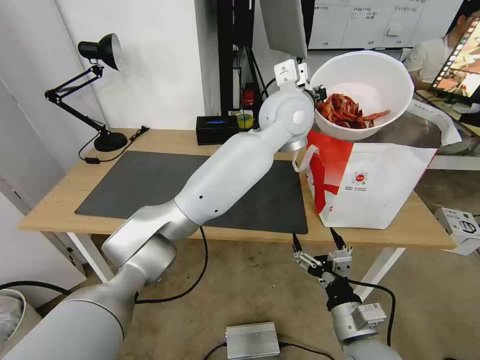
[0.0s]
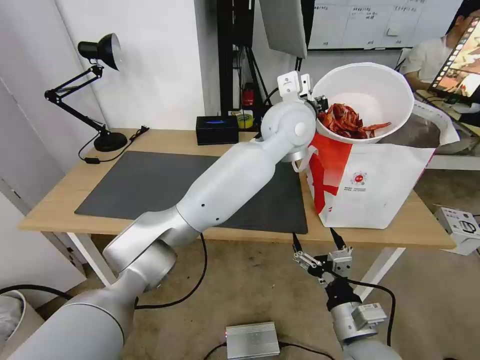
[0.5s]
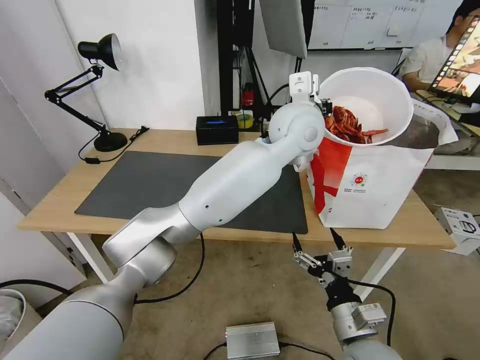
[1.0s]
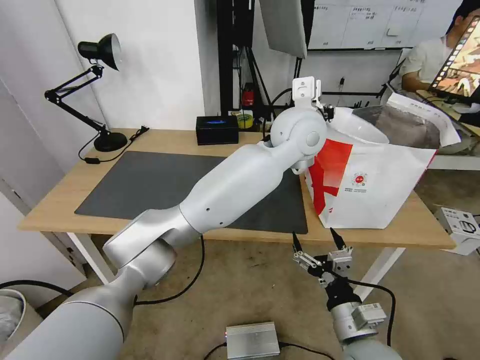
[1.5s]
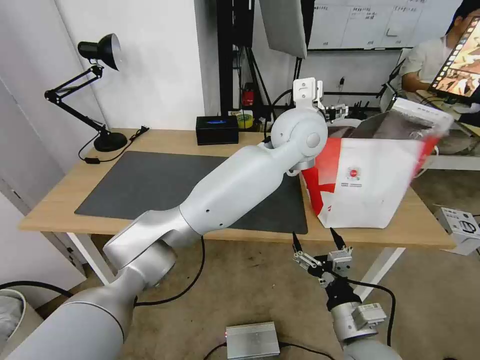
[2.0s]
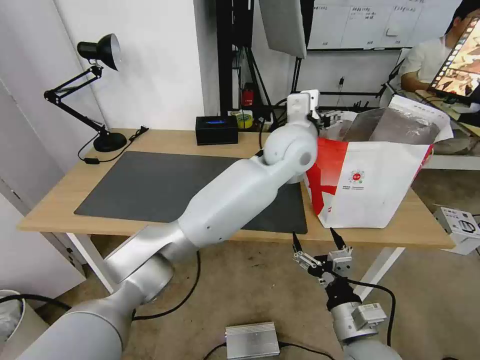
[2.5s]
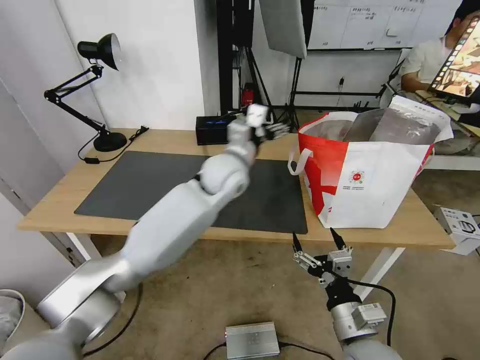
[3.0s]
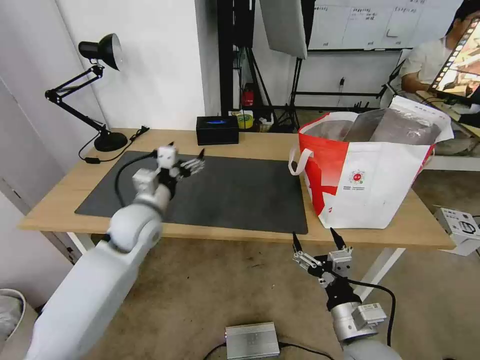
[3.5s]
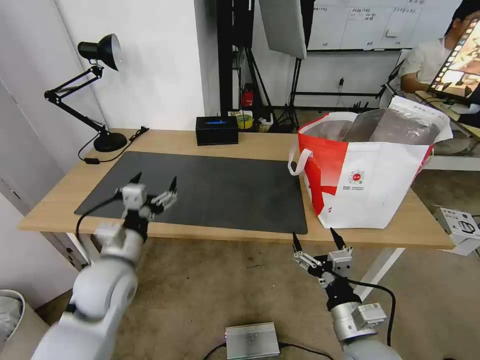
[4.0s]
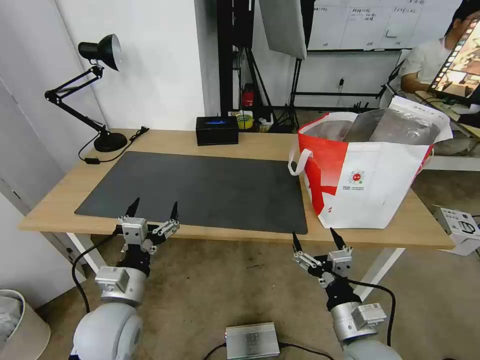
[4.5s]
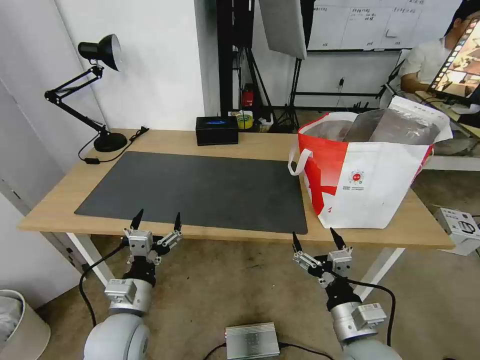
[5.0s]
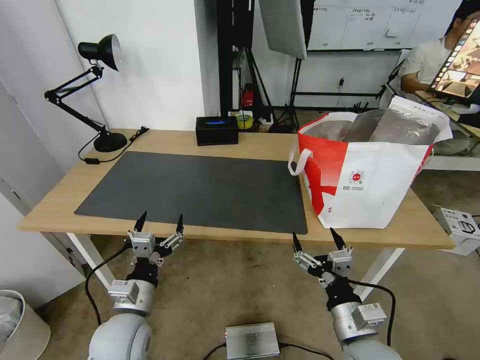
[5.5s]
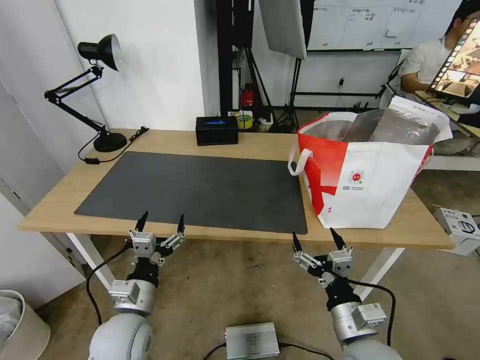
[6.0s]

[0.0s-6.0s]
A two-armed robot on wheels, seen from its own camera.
Task of the whole recording: Pick up the trash from the table and place it into the takeout bag.
0.0s to 2.0s: The left gripper opens up.
2.0s to 4.0s: The left gripper travels to the left, downward and backward by roughly 50 cm.
4.0s to 6.0s: The left gripper moves downward and backward, about 10 cm.

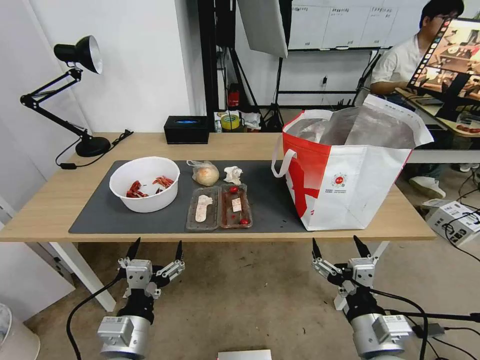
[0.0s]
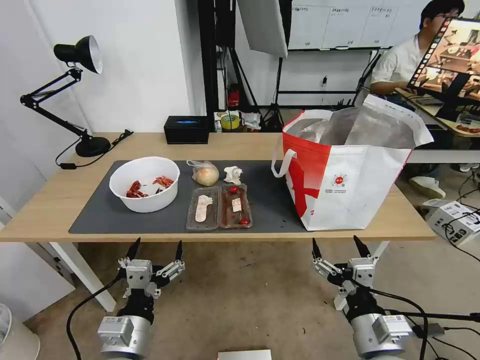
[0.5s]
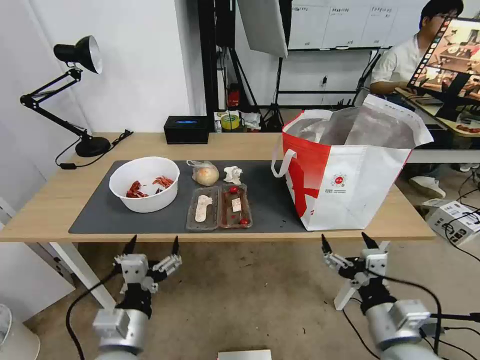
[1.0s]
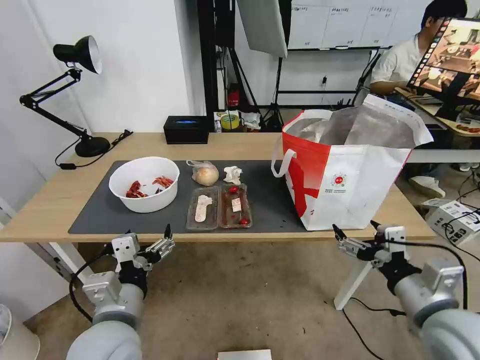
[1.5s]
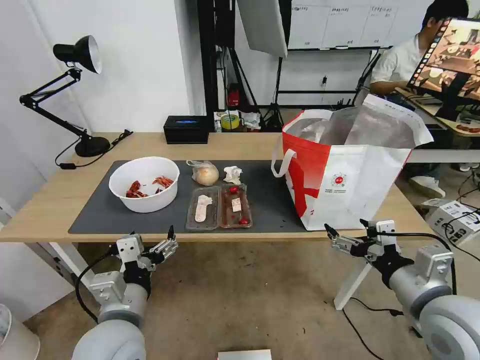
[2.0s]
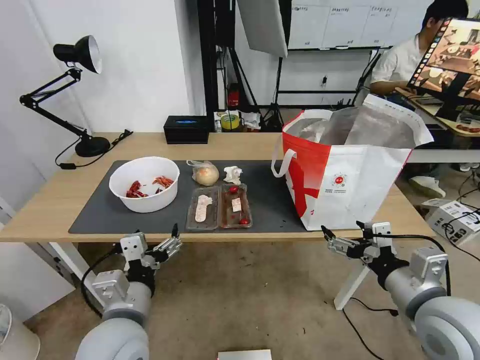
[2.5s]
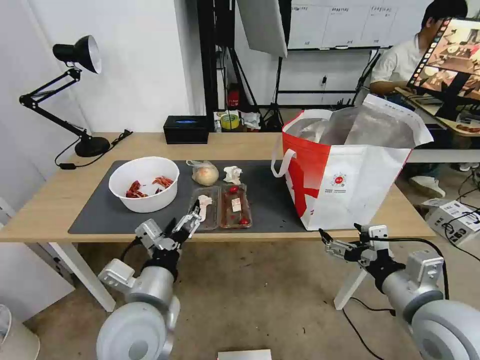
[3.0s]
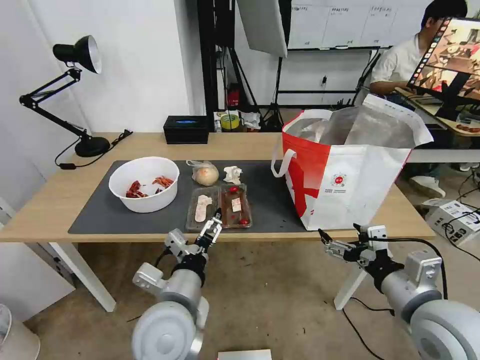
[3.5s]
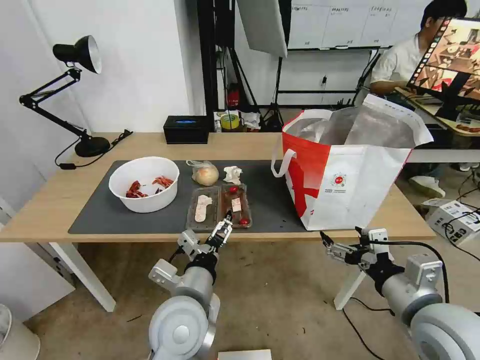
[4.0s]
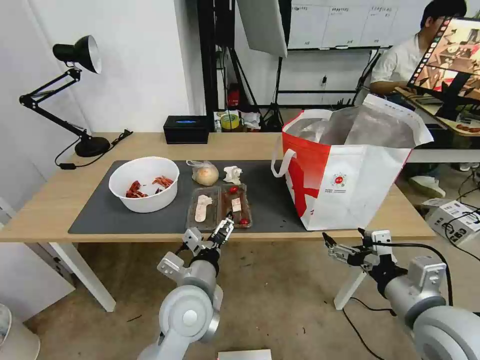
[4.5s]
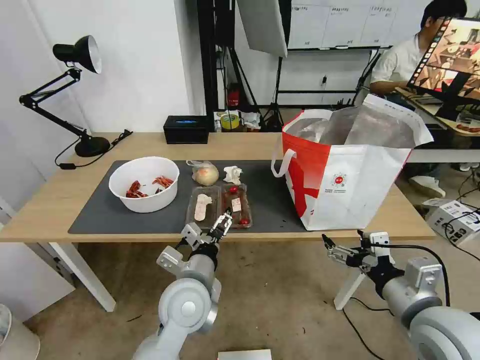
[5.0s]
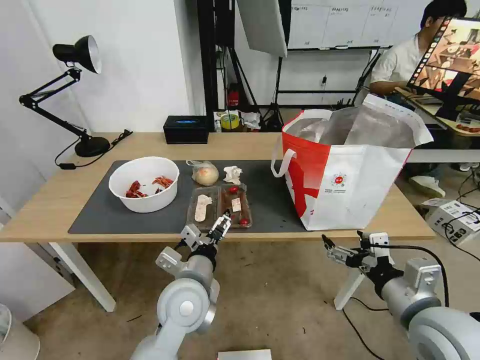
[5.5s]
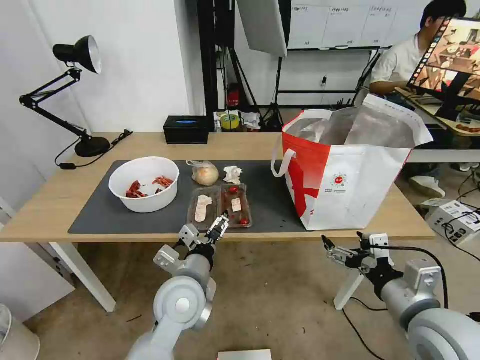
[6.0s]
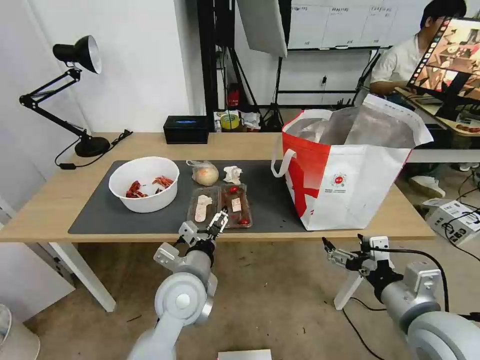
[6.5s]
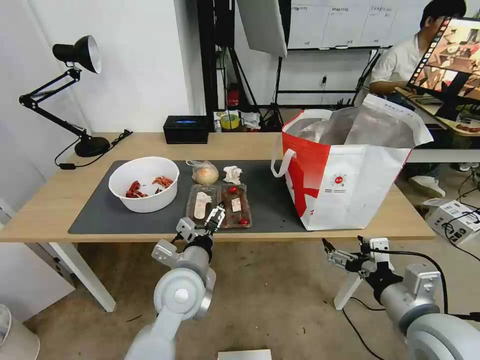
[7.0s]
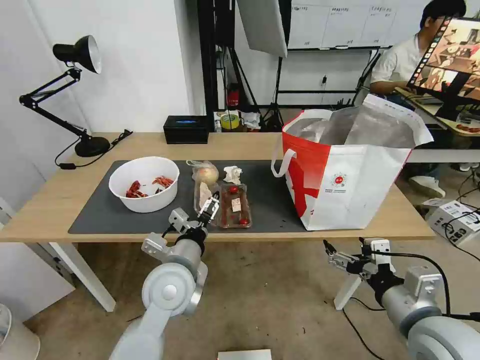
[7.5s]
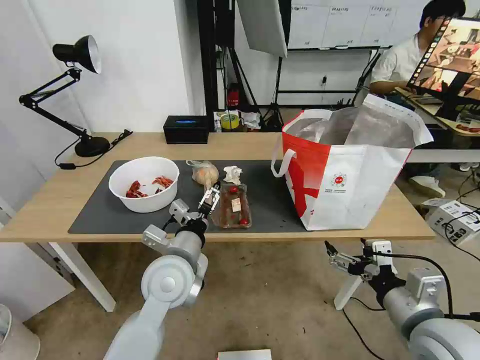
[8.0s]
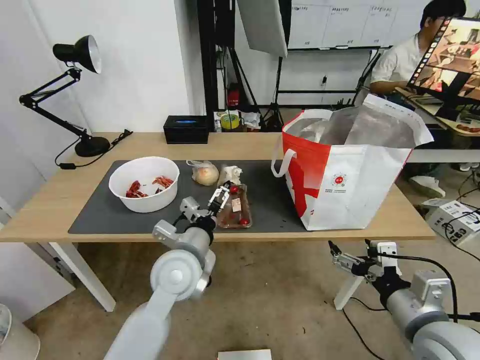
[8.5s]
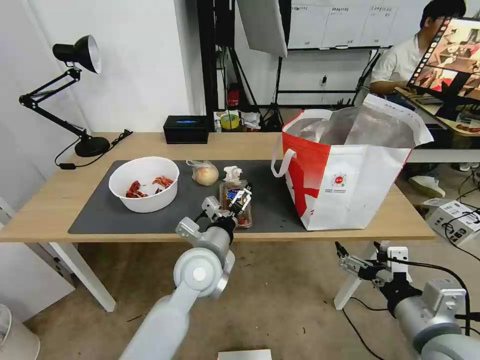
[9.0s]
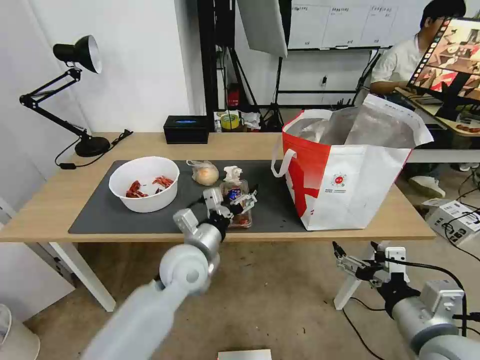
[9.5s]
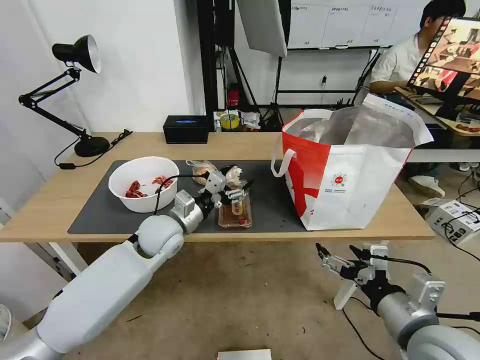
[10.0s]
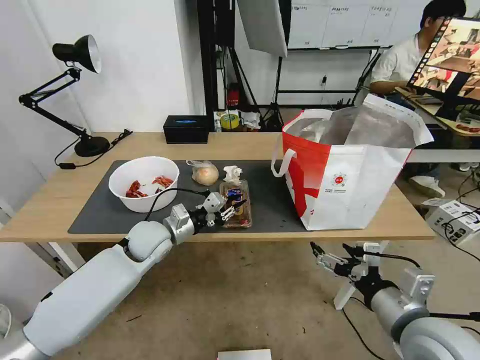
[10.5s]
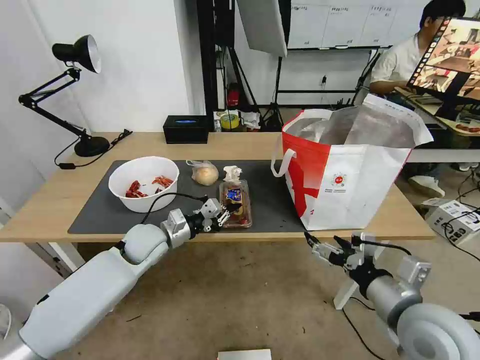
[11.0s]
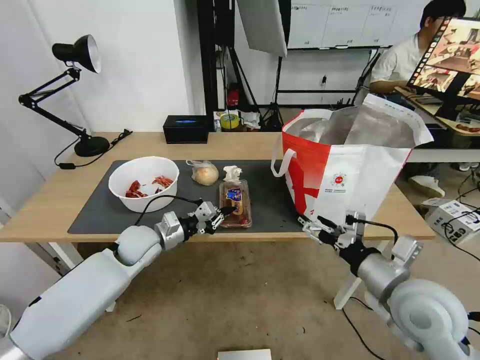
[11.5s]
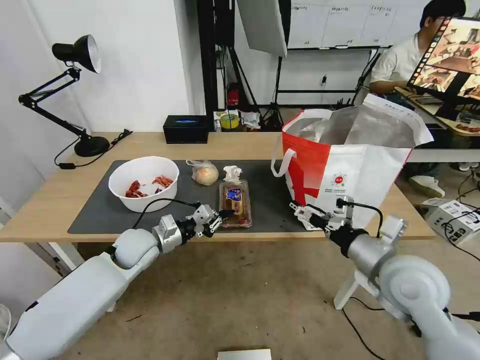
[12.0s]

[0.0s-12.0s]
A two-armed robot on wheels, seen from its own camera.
Task of the whole recording: Pick up the trash from the table and place it into the takeout bag.
2.0s to 4.0s: The left gripper travels to the right by about 10 cm.
4.0s to 6.0s: The left gripper ends up about 5 cm from where it was.
6.0s to 8.0s: The left gripper moves some 5 cm.
8.0s to 10.0s: The left gripper travels forward by approximately 10 cm.
10.0s to 12.0s: The right gripper shifts some 10 cm forward, while the left gripper goes roughly 10 cm to the left and downward, and closes.

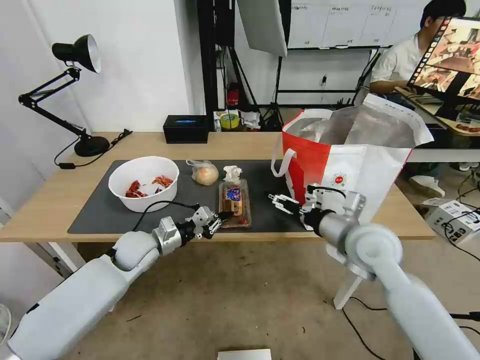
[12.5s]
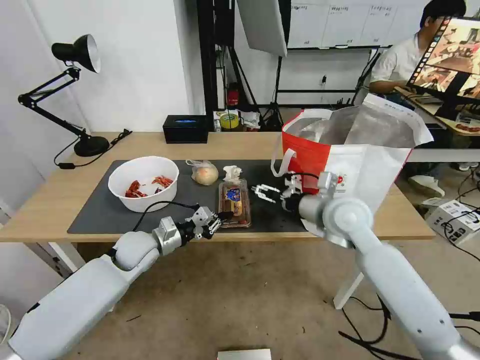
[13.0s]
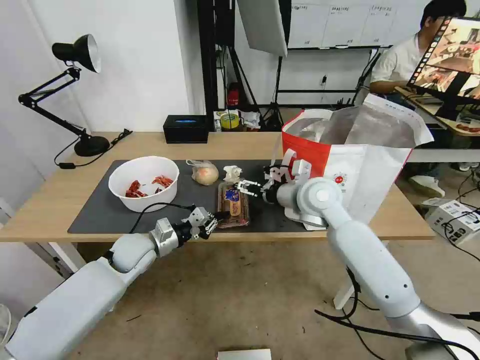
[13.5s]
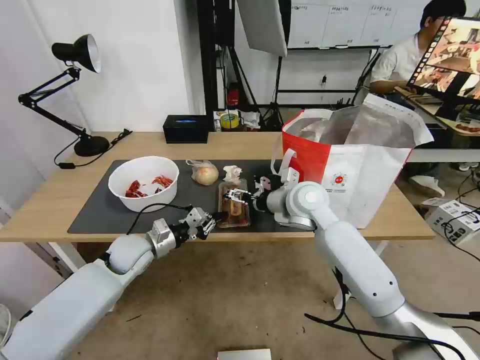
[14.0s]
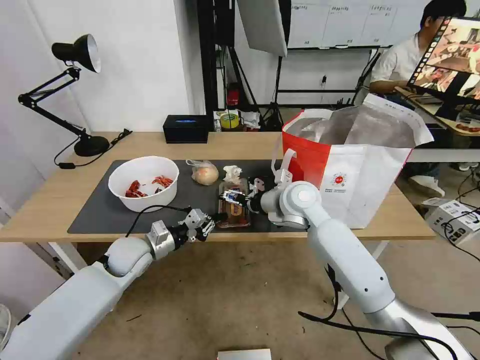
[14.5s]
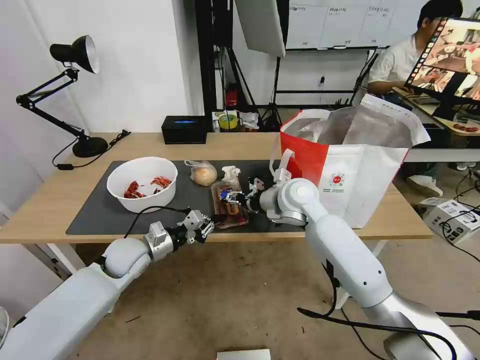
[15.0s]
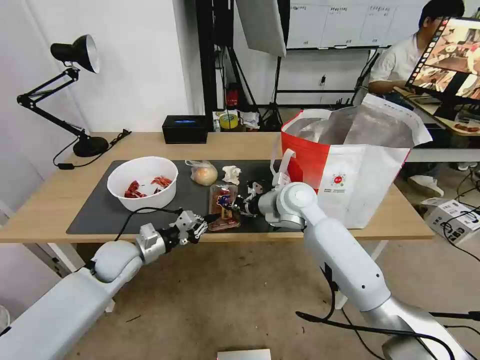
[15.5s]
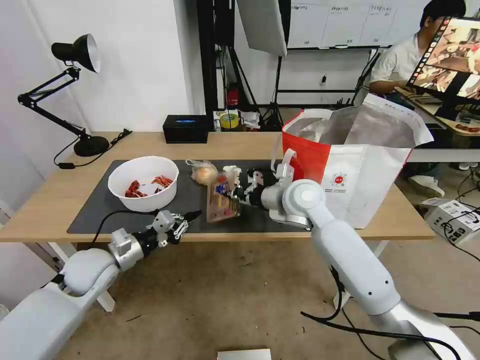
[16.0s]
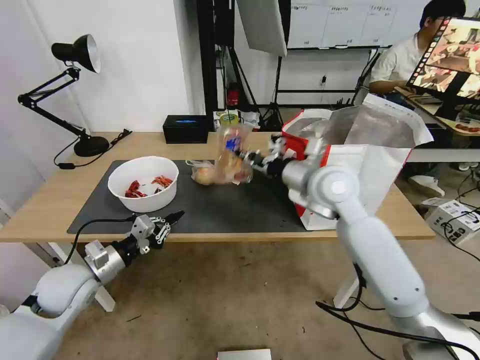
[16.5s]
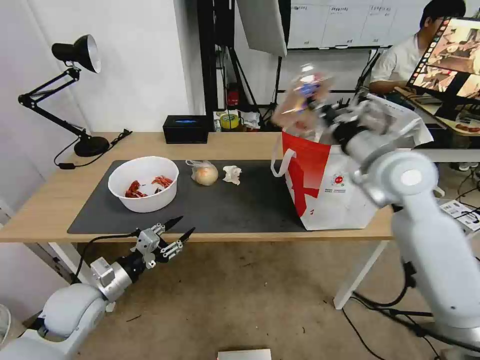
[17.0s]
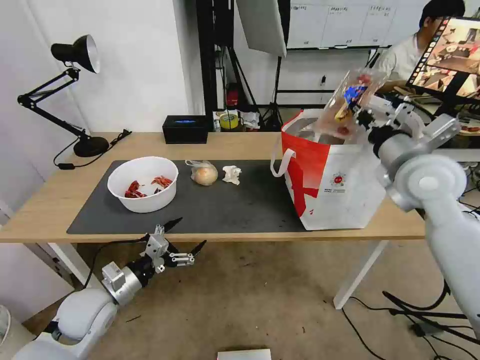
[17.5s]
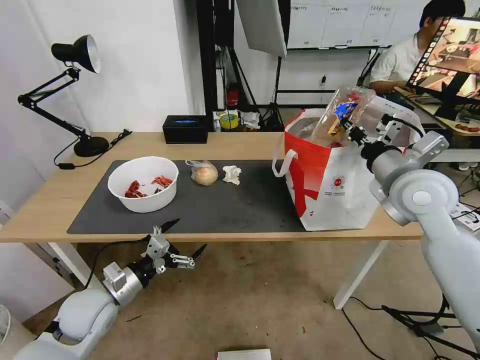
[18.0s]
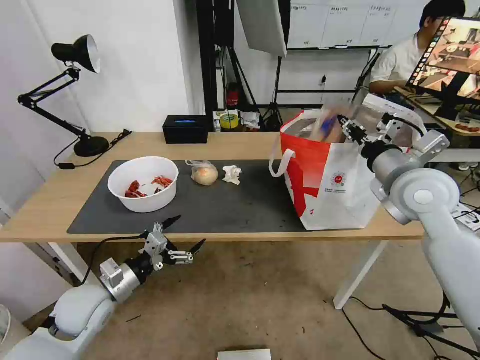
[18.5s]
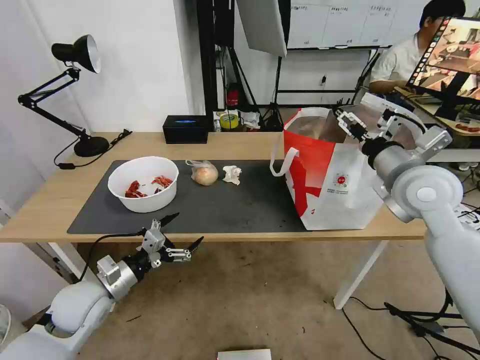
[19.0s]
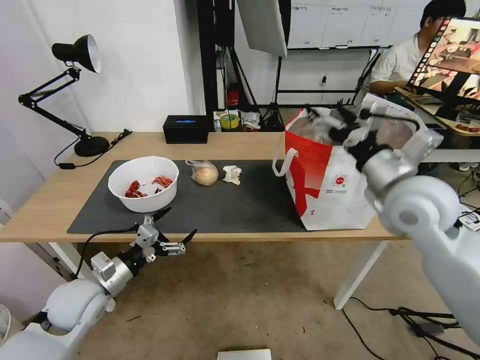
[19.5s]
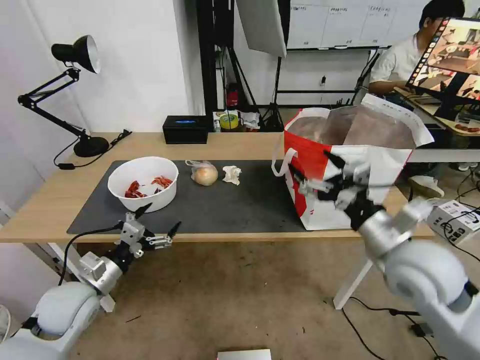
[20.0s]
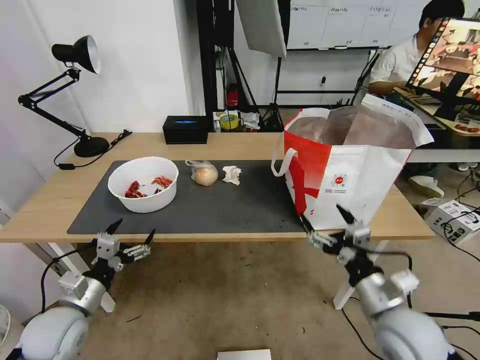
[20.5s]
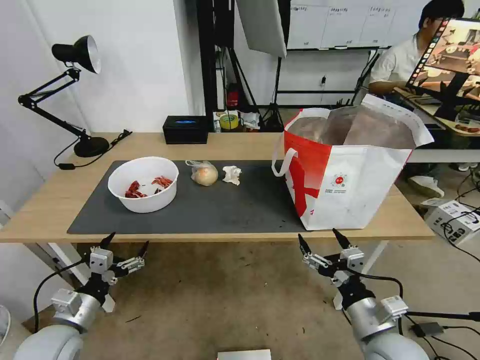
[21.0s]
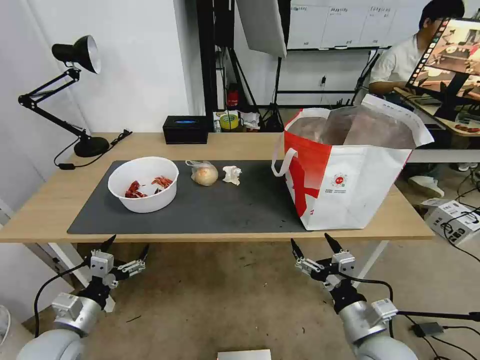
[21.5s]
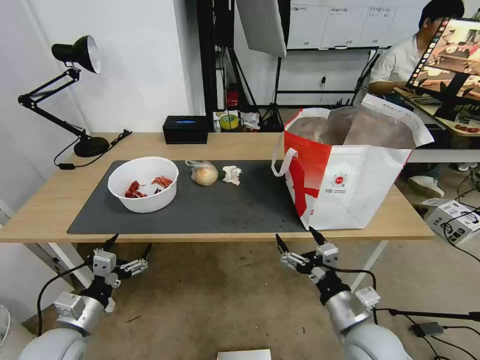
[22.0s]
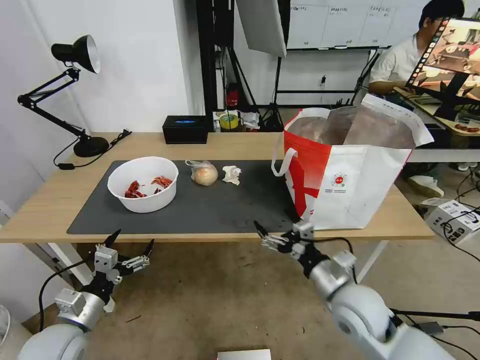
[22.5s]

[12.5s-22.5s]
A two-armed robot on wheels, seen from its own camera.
Task of the whole recording: Pick up the trash from the table and place it into the takeout bag.
12.5s to 14.5s: The right gripper moves forward and to the left, about 15 cm.
14.5s to 16.5s: The left gripper goes approximately 10 cm backward and to the left; the right gripper shifts some 10 cm upward, and closes.
16.5s to 18.5s: The right gripper moves to the right, about 15 cm, and opens; the left gripper ends up some 5 cm from where it was, and opens up.
18.5s to 20.5s: The right gripper shifts approximately 25 cm backward and downward, and opens up. The left gripper changes place by approximately 5 cm.
20.5s to 22.5s: The right gripper heads to the left, covering some 5 cm.
